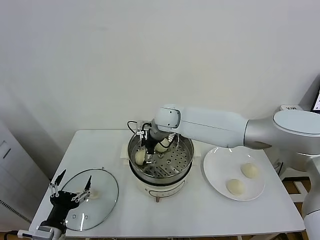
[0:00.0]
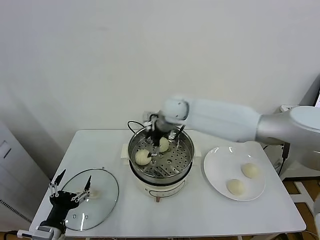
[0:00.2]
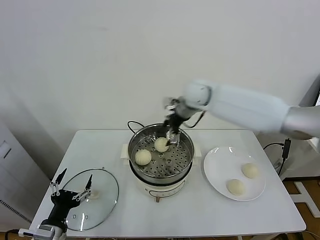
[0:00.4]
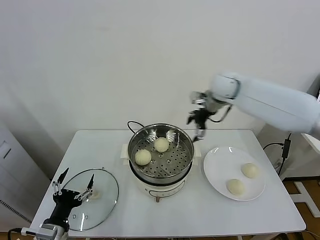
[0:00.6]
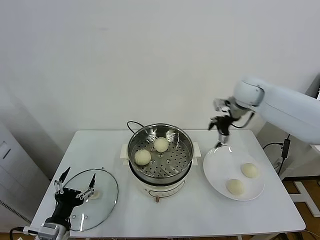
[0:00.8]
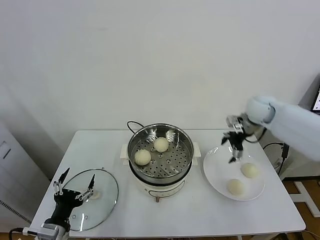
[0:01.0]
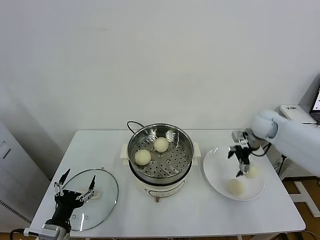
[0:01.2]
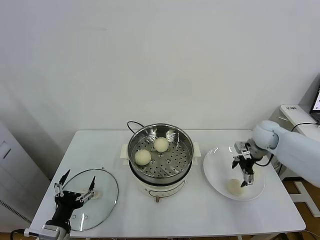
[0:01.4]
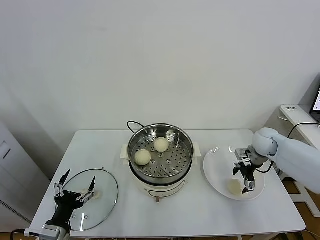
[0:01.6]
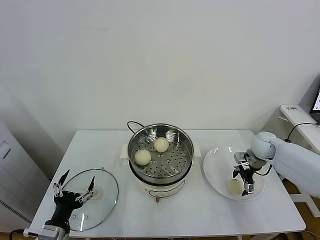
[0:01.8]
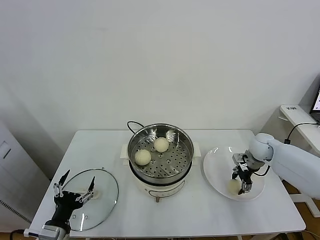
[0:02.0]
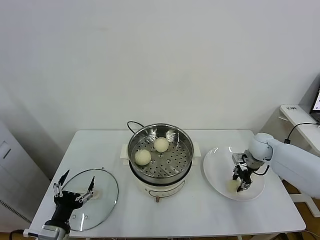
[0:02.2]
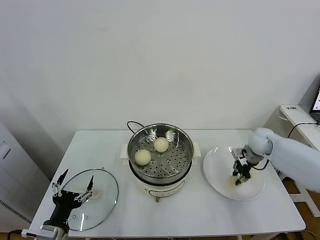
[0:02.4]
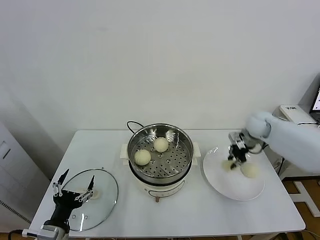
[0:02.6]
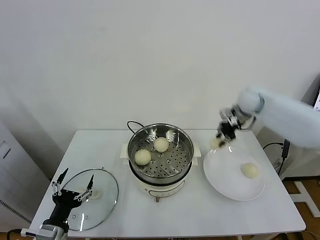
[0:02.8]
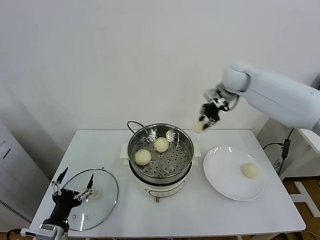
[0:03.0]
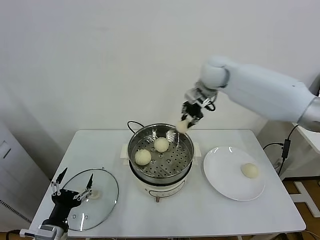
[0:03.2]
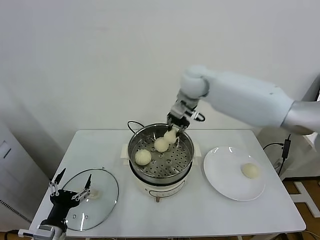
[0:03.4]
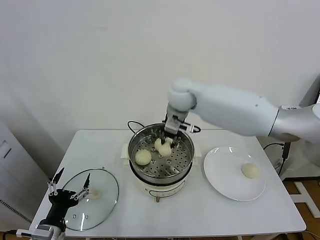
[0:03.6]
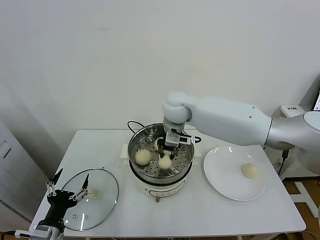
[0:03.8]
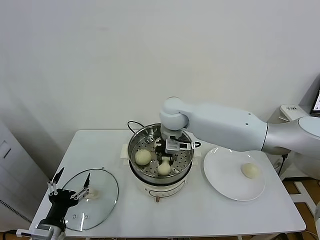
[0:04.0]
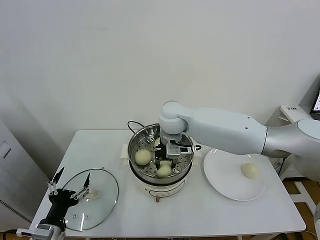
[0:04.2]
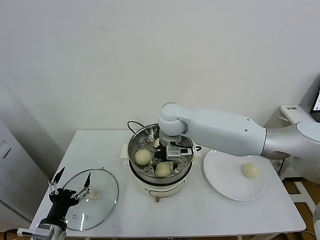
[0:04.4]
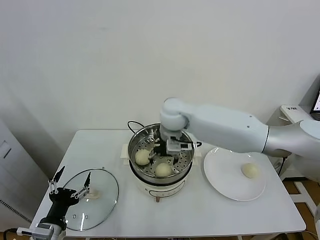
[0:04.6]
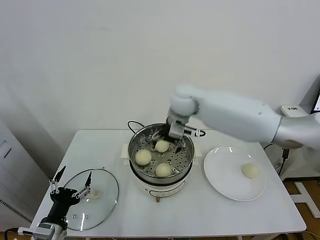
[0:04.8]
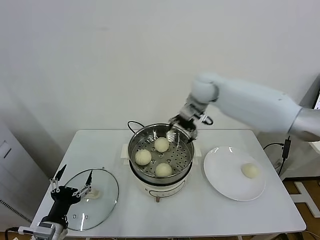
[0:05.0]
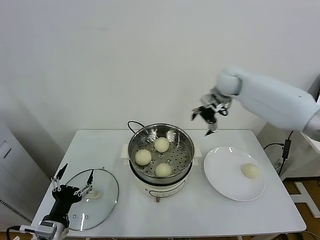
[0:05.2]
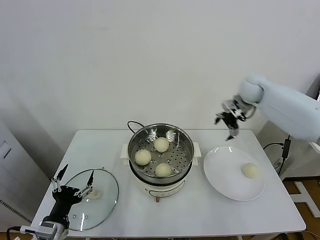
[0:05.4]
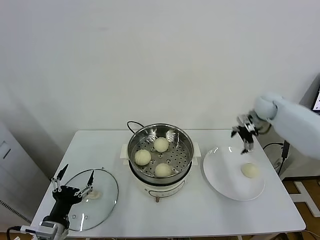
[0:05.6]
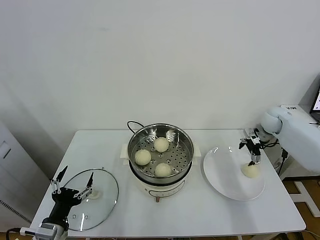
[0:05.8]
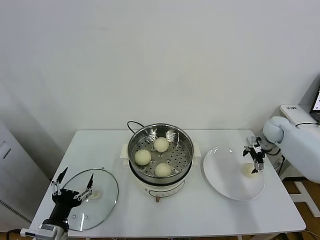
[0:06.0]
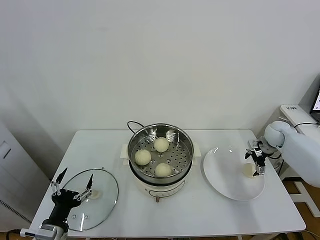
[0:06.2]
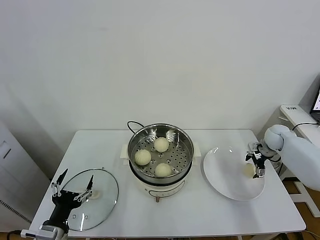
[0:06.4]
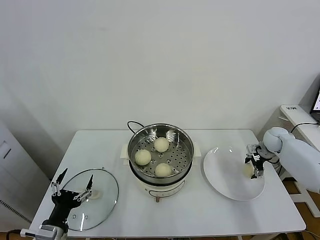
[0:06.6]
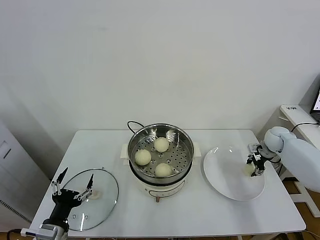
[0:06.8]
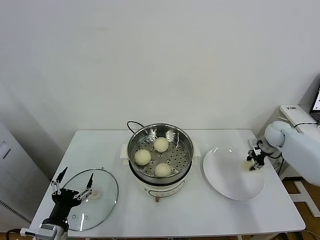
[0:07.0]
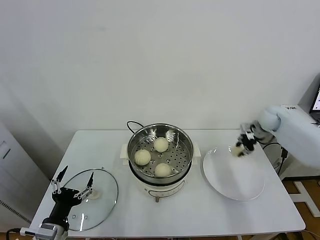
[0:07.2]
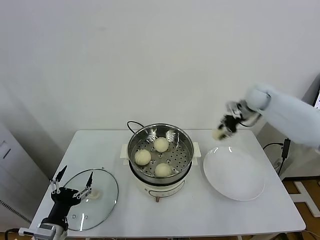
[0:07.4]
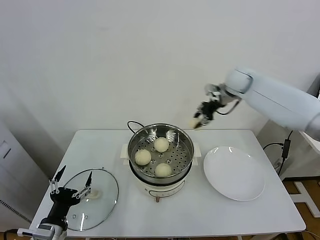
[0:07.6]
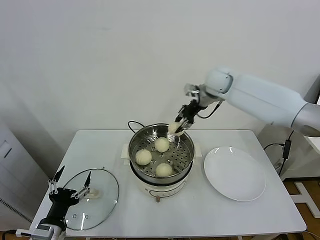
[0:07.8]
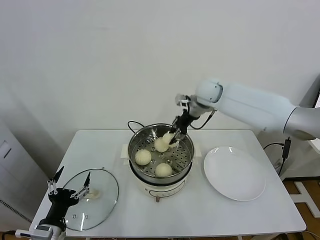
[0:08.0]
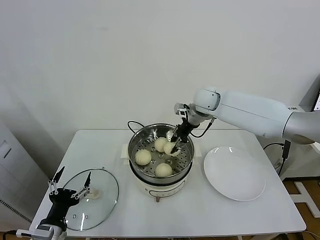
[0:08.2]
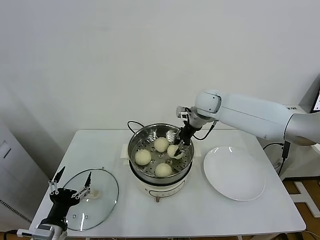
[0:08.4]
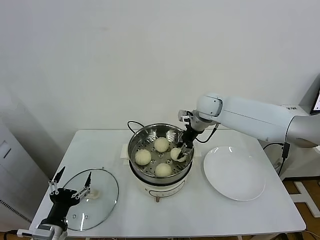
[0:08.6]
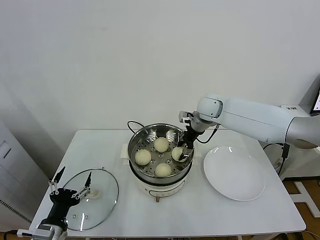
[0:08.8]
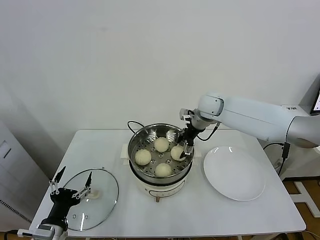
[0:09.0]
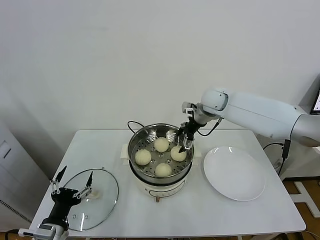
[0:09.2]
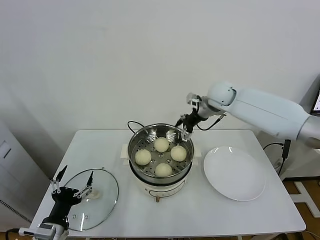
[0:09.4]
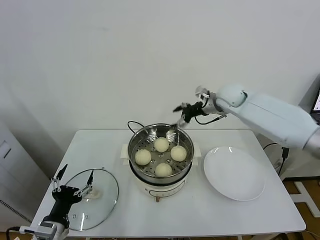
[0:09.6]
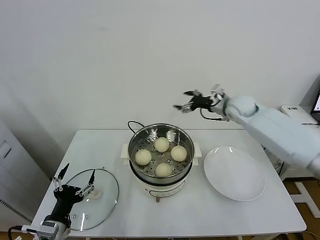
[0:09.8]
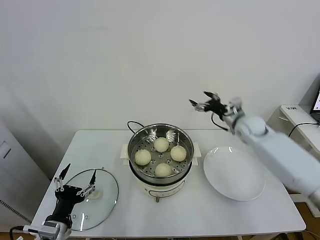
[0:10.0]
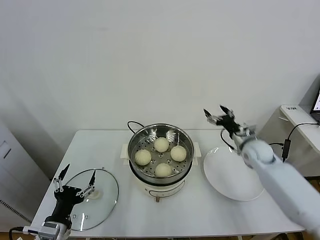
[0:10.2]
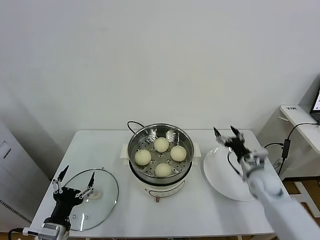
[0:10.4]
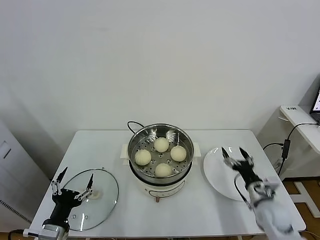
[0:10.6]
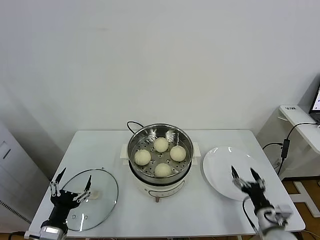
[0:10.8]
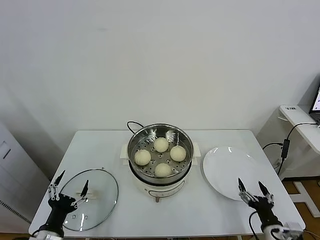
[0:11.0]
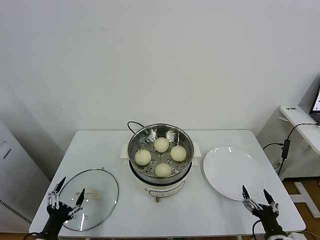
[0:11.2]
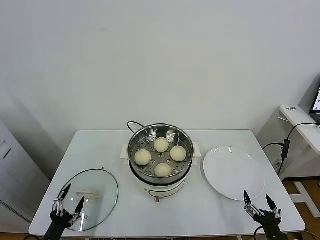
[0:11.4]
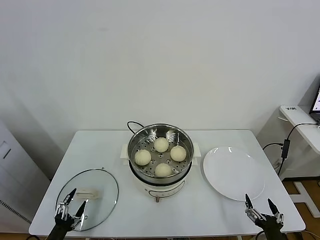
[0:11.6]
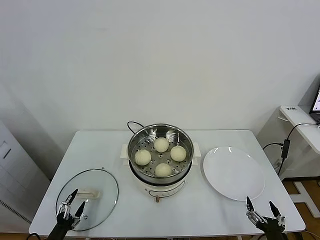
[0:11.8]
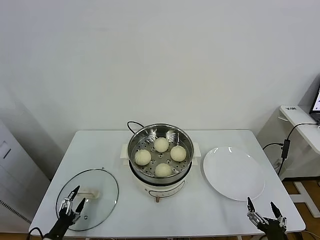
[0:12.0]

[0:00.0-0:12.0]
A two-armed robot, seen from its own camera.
Task of the whole recording: take steamed baozi put them in steamer.
Step, 0:00.2 to 0:02.0: Grasp the baozi in the plate with right gripper.
Step, 0:02.2 to 0:04.6: Place the baozi on the steamer with right gripper.
Step, 0:04.8 to 0:06.8: Grasp the baozi in the plate with right gripper.
Step, 0:07.0 to 0:09.0: Place the baozi on the steamer with right gripper.
0:00.0 to 0:01.6: The right gripper travels to the right by some 35 cm.
0:01.6 to 0:03.0: The right gripper travels upward and to the left by about 25 cm, and closes its fingers.
0:03.0 to 0:04.4: The right gripper goes approximately 25 cm to the left, backward and downward, and opens.
0:04.4 to 0:06.0: The right gripper is displaced to the right by approximately 40 cm.
0:06.0 to 0:07.6: The right gripper is displaced to the left and upward by roughly 25 cm, and closes up.
0:07.6 to 0:09.0: The right gripper goes about 10 cm to the left and downward, and opens its fingers.
0:09.0 to 0:10.4: The right gripper heads downward, to the right and backward, covering some 30 cm.
0:10.4 to 0:12.0: The right gripper travels backward by some 30 cm. The left gripper shifts approximately 20 cm downward and to the left.

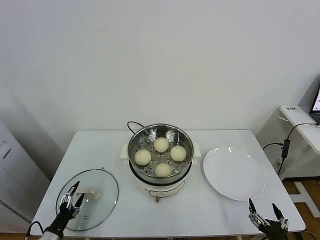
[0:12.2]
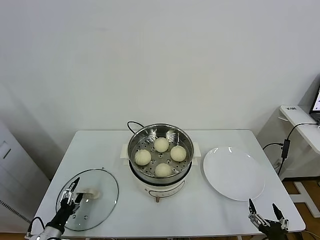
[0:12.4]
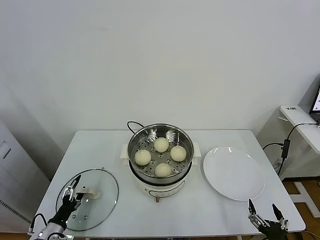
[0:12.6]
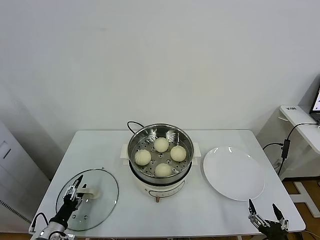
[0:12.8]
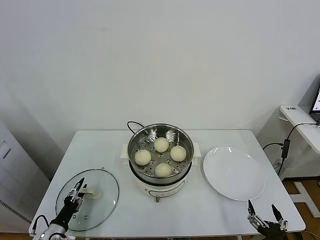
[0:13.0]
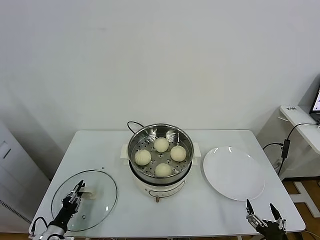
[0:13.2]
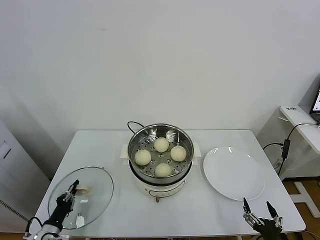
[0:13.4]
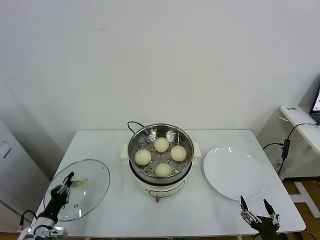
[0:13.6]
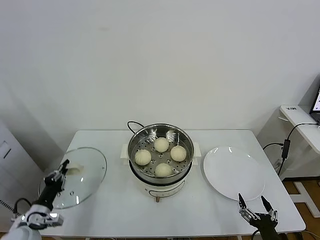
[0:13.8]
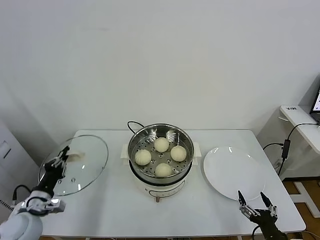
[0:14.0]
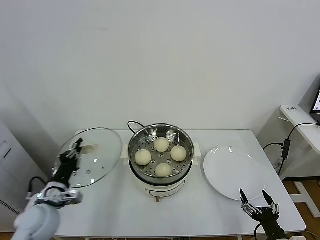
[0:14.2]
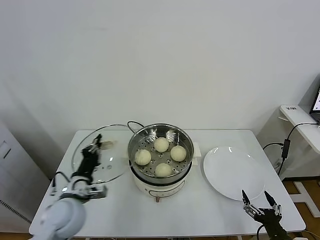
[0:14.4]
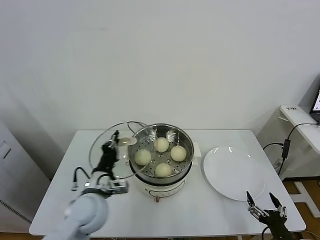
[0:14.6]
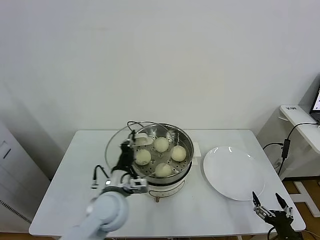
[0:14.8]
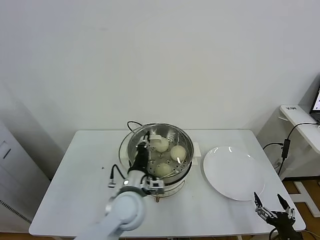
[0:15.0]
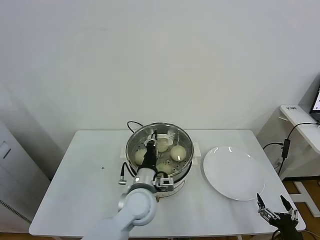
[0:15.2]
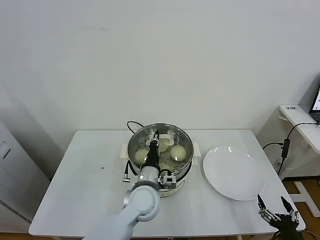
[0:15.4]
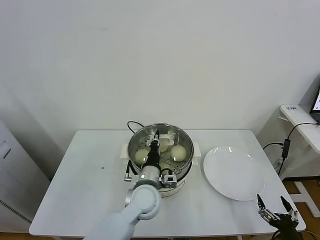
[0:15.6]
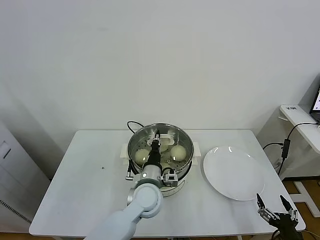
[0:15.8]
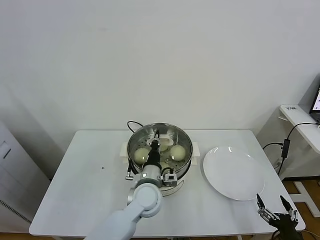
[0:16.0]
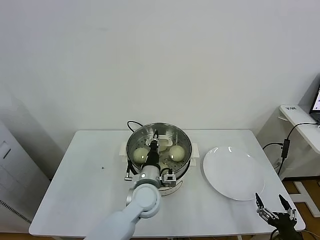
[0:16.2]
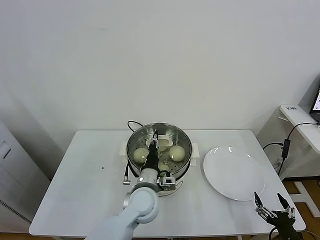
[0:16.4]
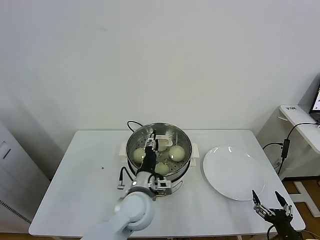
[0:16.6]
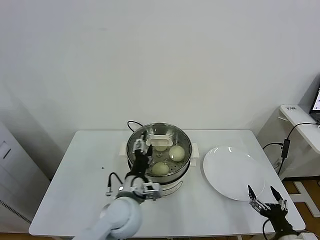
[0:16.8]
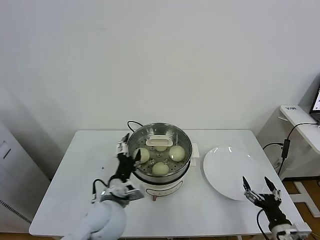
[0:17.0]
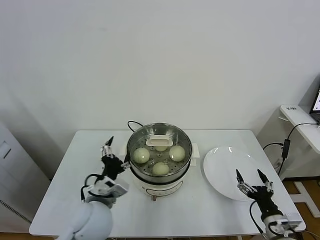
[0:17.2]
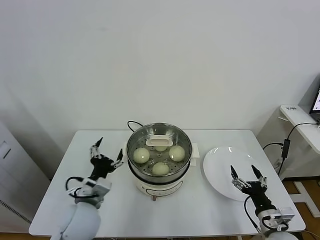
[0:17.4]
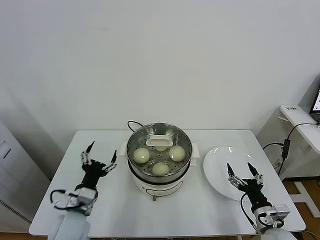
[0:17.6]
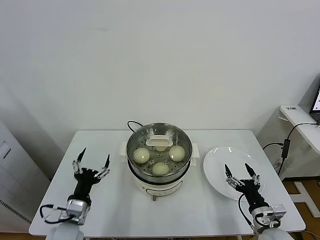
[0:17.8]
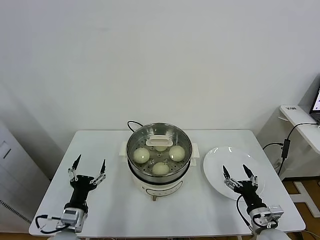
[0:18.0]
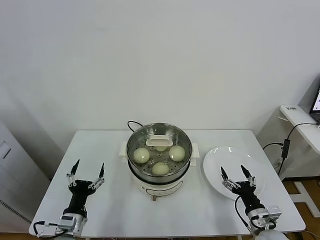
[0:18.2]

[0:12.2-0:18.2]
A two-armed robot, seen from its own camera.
Task of the whole recording: take steamed baozi put them in steamer.
Step, 0:13.6 to 0:17.0: Place the pot lid on the steamer with left gripper.
0:12.2 to 0:13.8: The left gripper travels upward and forward by roughly 10 cm, and closes up.
0:13.8 to 0:15.2: The right gripper heads to the right, covering roughly 5 cm, while the left gripper shifts about 35 cm to the right.
0:15.2 to 0:16.6: The left gripper opens.
0:16.6 to 0:18.2: The right gripper travels forward and to the left by about 10 cm. The left gripper is displaced to the left and backward by some 25 cm, and opens.

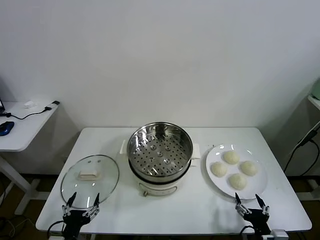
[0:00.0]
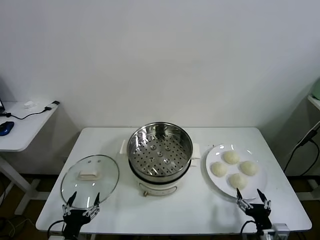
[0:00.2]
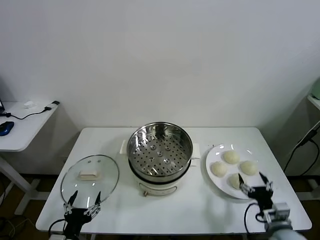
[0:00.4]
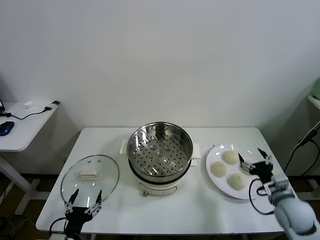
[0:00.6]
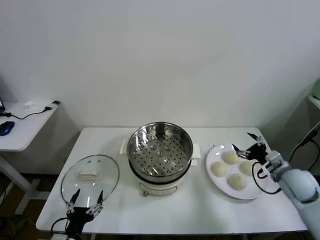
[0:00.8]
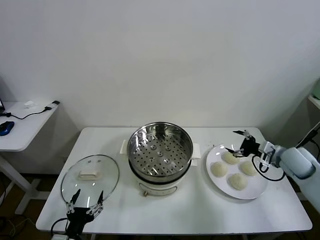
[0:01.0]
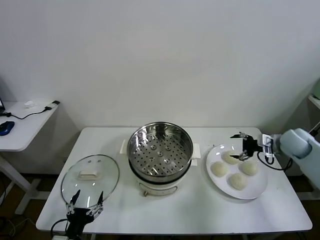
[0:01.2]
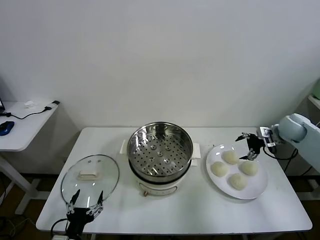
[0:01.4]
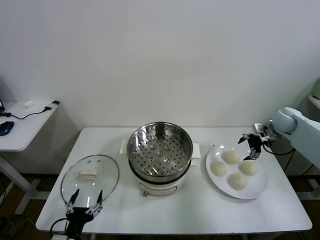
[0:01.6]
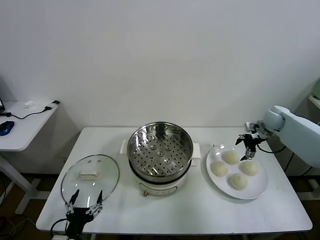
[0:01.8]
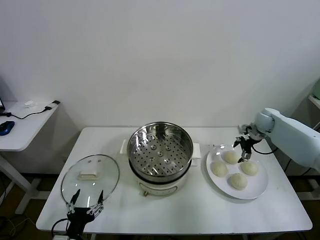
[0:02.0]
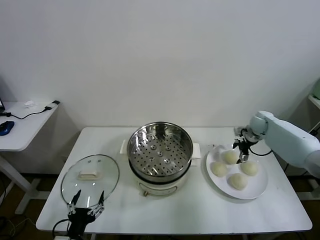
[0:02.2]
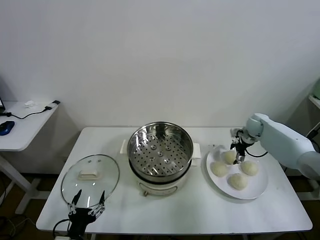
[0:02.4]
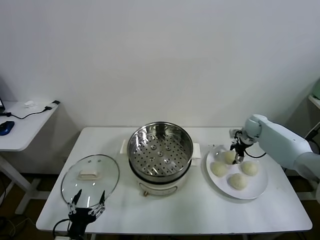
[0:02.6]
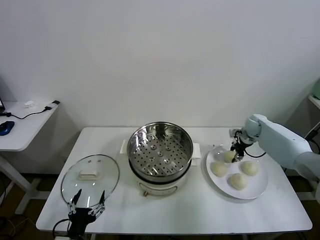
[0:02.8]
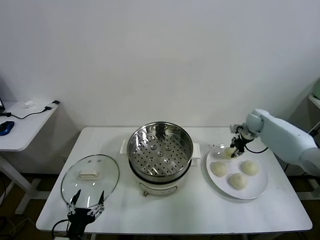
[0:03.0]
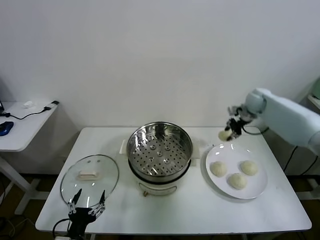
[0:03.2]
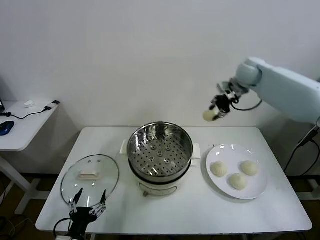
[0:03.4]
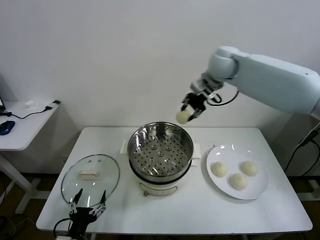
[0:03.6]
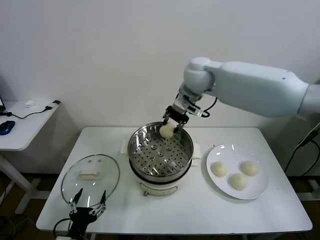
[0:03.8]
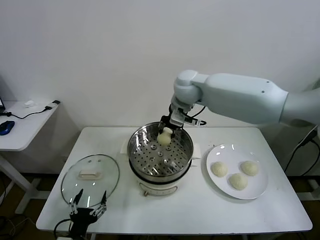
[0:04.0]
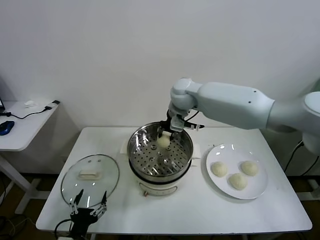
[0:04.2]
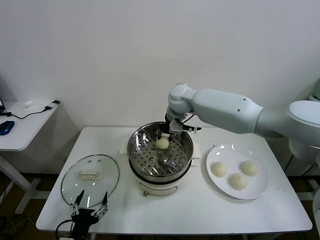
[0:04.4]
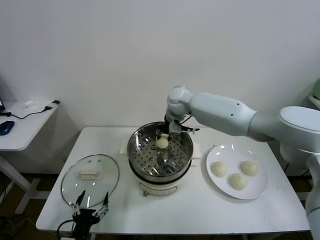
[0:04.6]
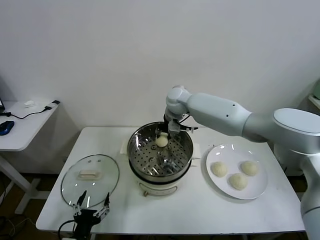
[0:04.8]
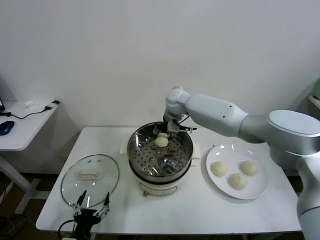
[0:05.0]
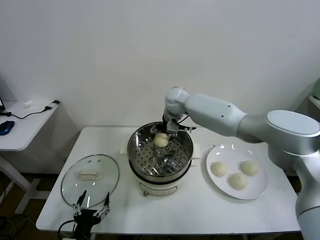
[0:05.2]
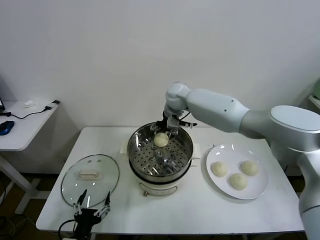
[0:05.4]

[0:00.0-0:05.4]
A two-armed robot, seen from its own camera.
Task of the whole recording: take steamed baozi put them in steamer.
Step, 0:00.0 to 0:02.6: Grasp the baozi in the plate with right gripper.
Step, 0:03.0 to 0:05.4: Place the baozi on the steamer with right gripper.
0:01.4 to 0:02.8: The right gripper goes approximately 10 cm downward, forward and to the left, and closes its fingers.
0:02.8 to 0:04.0: The right gripper travels to the left and upward by roughly 40 cm.
0:04.0 to 0:05.4: The right gripper goes roughly 5 cm forward, and opens its fingers.
